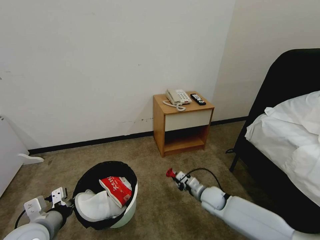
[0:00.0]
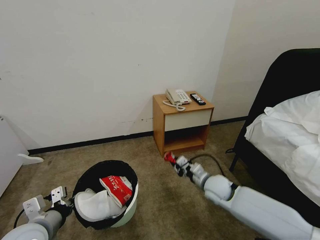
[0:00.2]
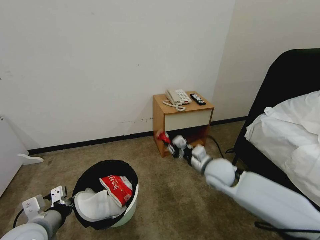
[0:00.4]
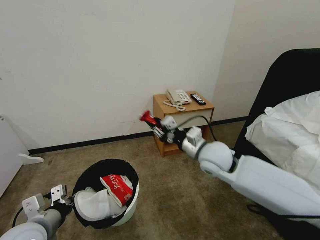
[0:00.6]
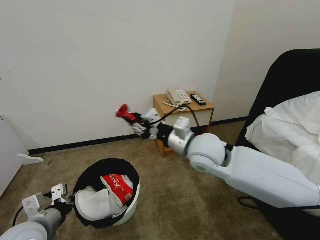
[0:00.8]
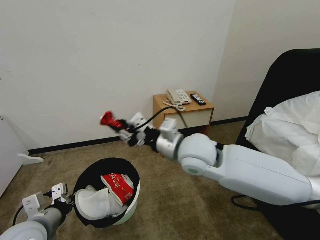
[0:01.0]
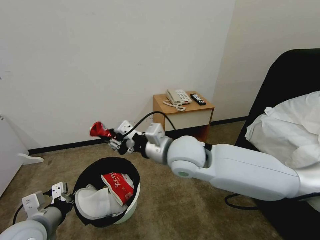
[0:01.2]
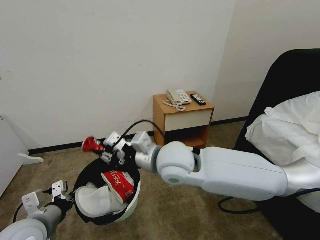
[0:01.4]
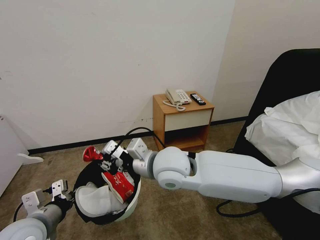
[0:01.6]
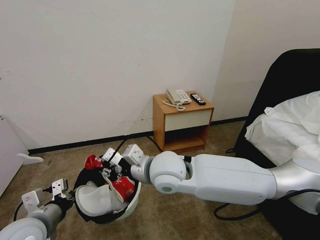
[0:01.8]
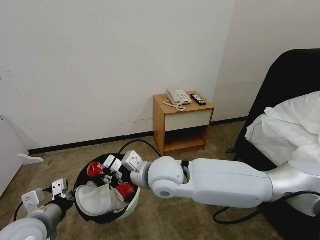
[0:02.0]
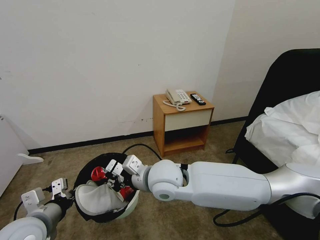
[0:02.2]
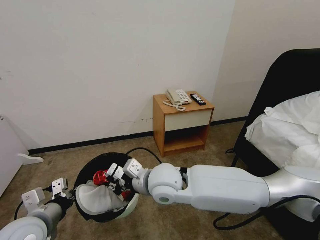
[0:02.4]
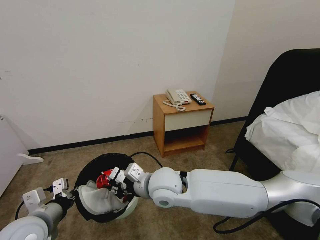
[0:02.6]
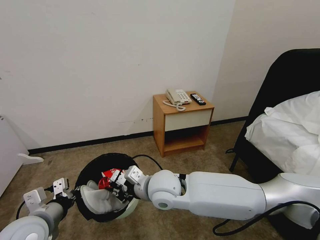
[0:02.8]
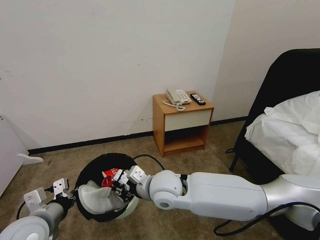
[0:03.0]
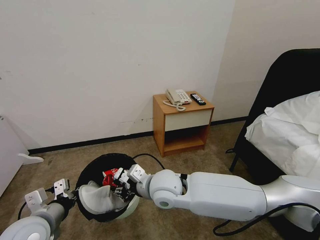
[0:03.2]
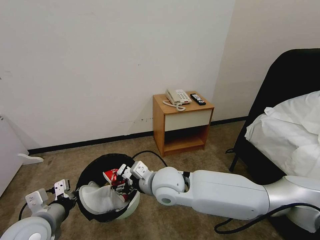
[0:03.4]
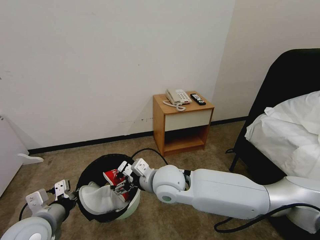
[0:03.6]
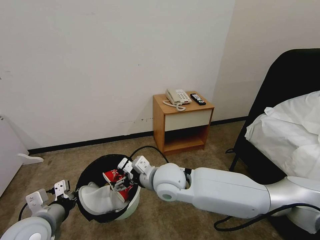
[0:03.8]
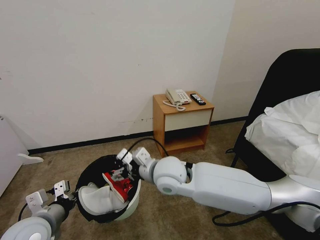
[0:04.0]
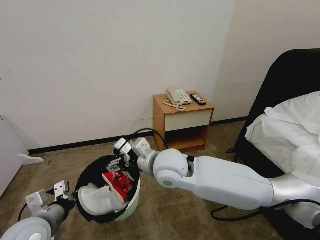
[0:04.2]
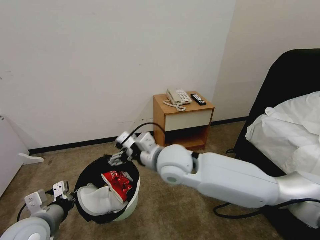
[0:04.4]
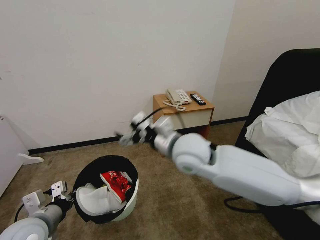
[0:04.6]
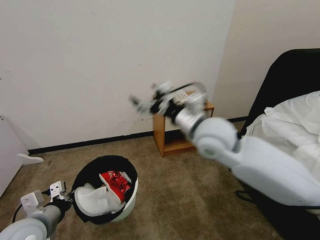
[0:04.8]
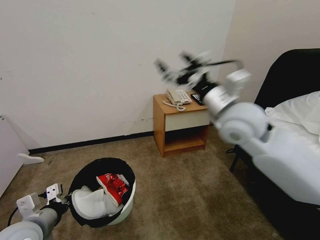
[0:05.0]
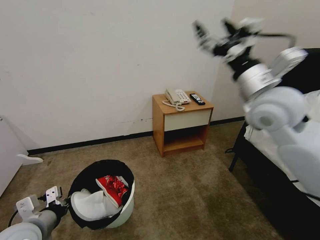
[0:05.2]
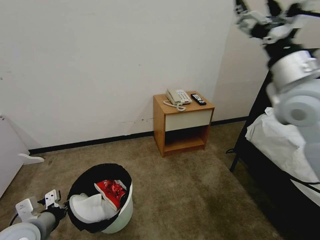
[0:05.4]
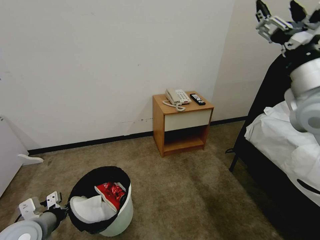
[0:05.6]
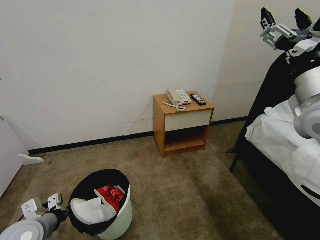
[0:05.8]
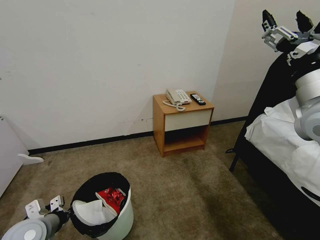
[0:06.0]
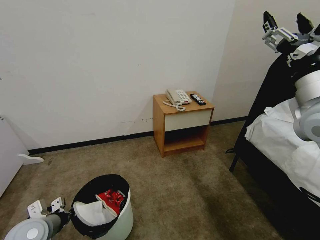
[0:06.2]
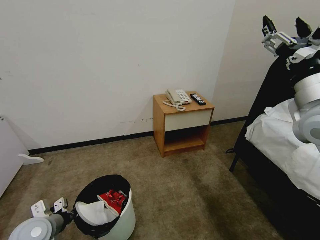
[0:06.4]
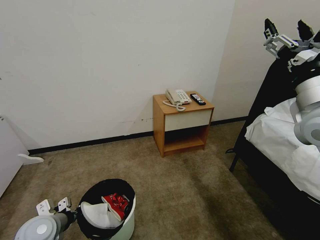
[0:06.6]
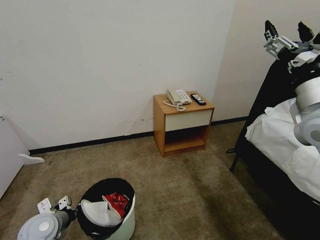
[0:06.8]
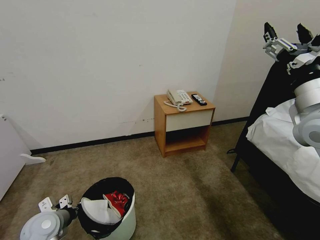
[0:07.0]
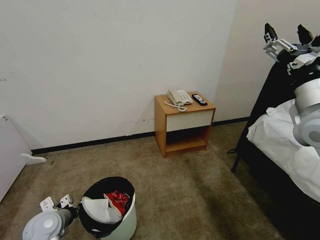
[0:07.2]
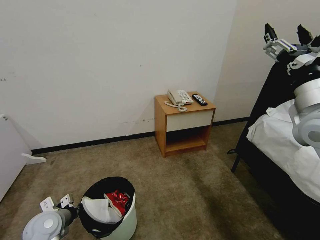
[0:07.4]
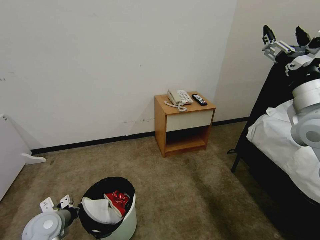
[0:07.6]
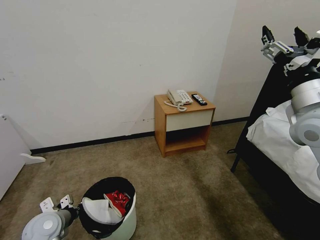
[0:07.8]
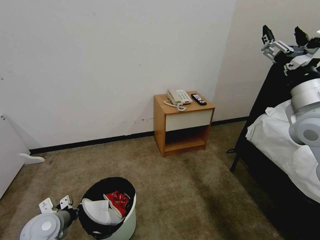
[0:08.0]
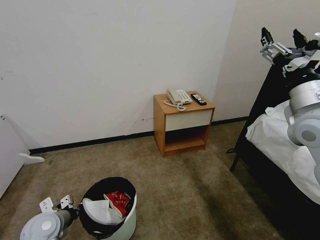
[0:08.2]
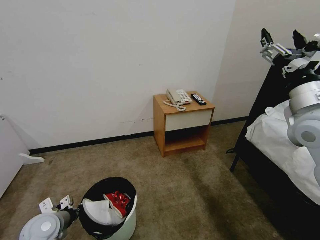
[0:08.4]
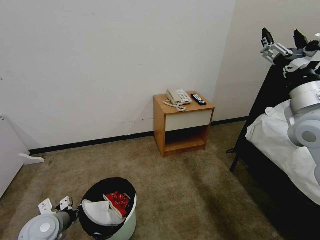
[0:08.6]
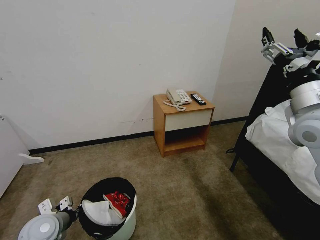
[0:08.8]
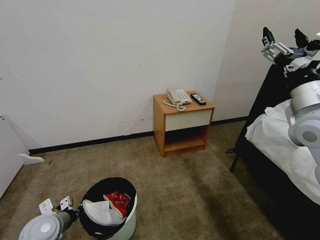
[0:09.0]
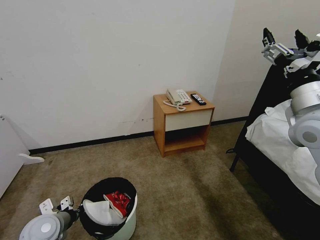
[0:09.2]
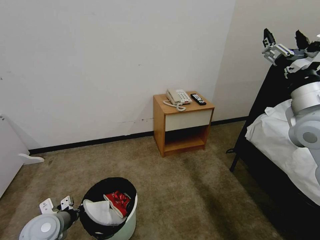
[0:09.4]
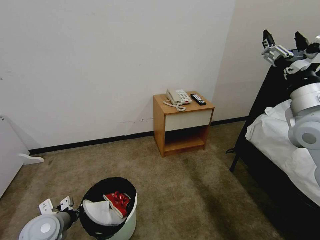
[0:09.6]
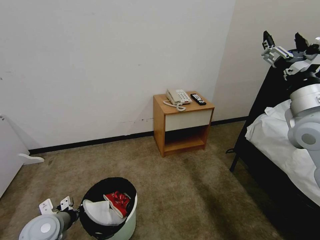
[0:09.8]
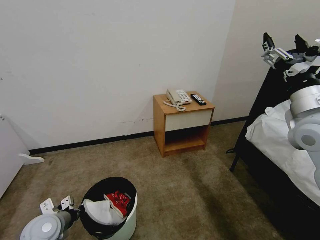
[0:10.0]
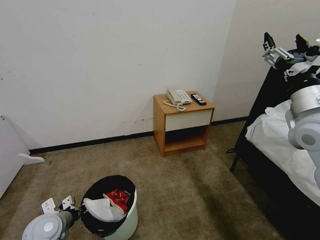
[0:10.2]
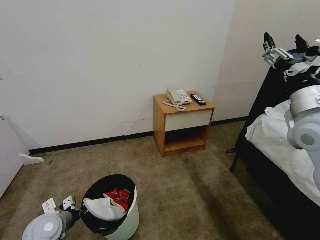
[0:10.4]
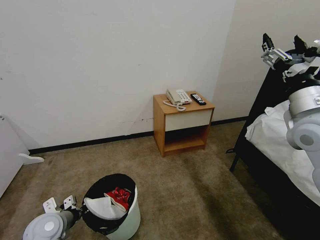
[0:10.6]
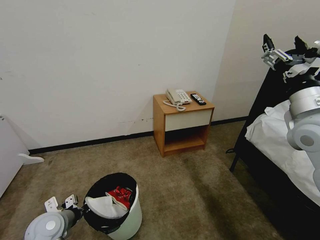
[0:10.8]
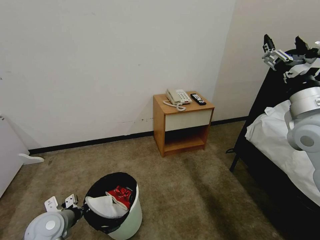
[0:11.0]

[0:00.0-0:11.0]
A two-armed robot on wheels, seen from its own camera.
Task of the whole recording: Pick up the trash bin, then pick up the garbage from the floor and place it into the trash bin.
0:00.0 to 0:01.6: The right gripper heads upward and to the left, covering about 35 cm.
0:01.6 to 0:03.2: The right gripper travels downward by approximately 10 cm.
0:03.2 to 0:04.8: The right gripper shifts some 20 cm upward and to the right, and opens up.
0:04.8 to 0:06.2: The right gripper is displaced to the right by approximately 20 cm. The left gripper travels downward by some 5 cm.
0:06.2 to 0:07.8: The grippers make only small movements.
0:07.8 to 0:09.4: Both grippers stay about where they are.
0:09.4 to 0:11.0: Both grippers stay put.

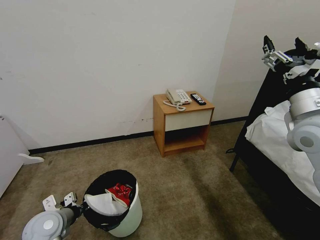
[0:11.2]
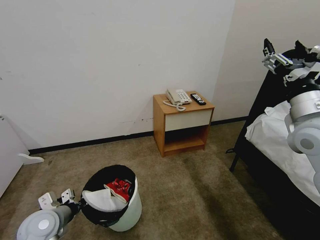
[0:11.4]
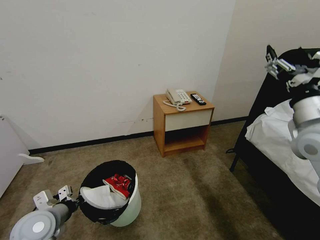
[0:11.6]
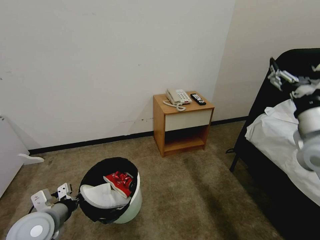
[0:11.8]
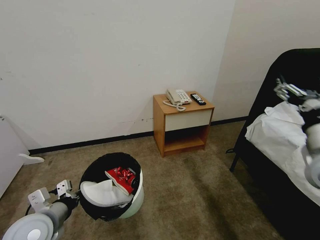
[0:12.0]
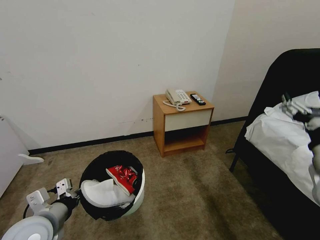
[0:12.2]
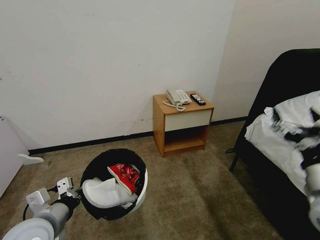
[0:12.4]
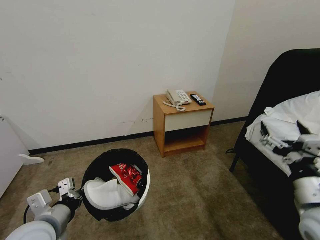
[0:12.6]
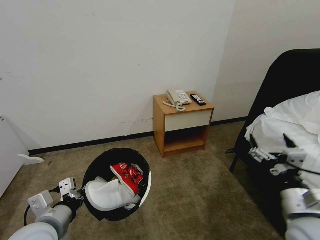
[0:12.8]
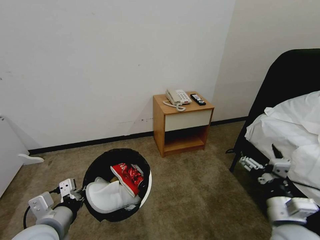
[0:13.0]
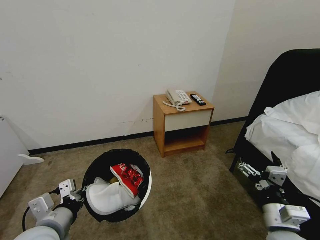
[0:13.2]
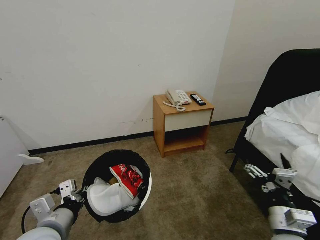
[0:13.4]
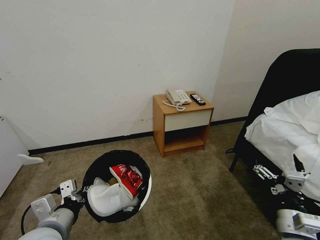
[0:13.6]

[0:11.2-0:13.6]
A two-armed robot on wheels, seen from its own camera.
Task of the whole recording: Pick up the trash bin, then pick up the garbage from the floor and place it into the trash bin.
0:11.2 to 0:12.4: The right gripper moves backward and downward, roughly 15 cm, while the left gripper goes roughly 10 cm upward and backward.
0:12.4 to 0:13.6: The right gripper is displaced downward by some 15 cm.
